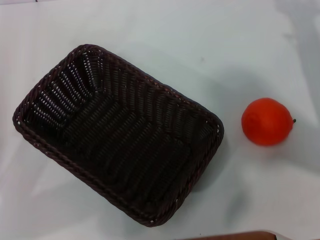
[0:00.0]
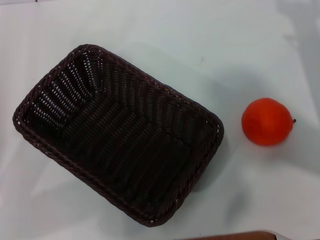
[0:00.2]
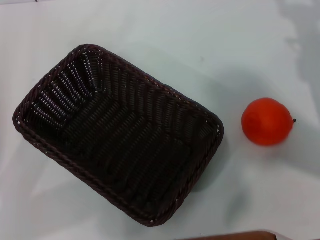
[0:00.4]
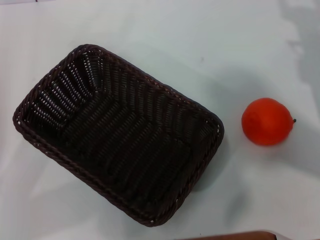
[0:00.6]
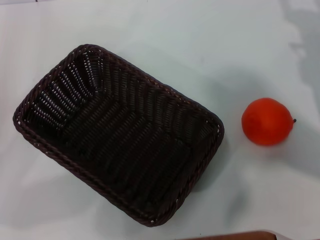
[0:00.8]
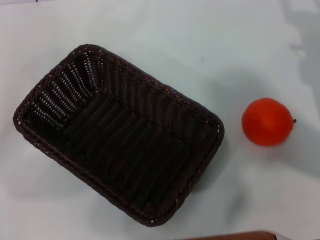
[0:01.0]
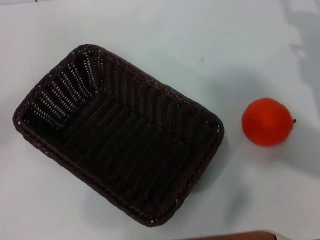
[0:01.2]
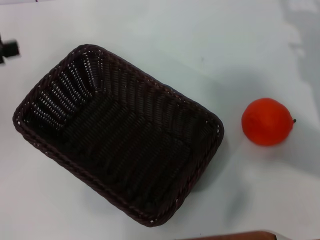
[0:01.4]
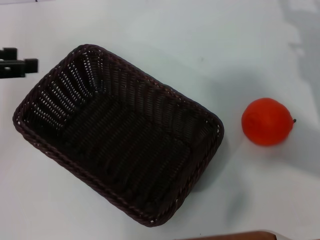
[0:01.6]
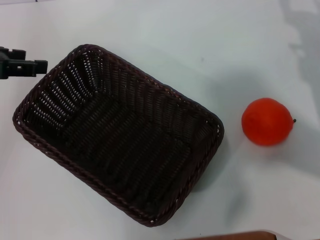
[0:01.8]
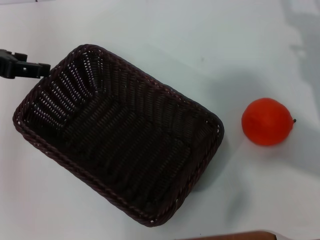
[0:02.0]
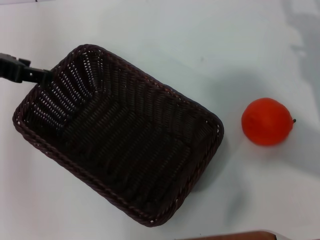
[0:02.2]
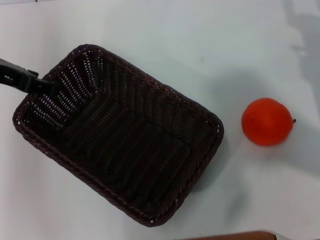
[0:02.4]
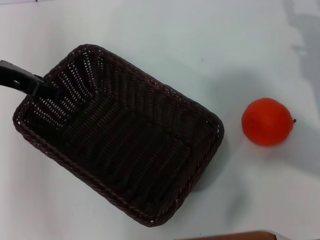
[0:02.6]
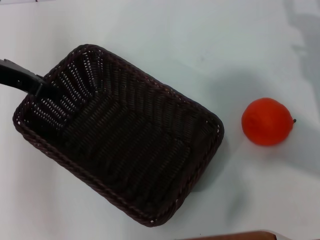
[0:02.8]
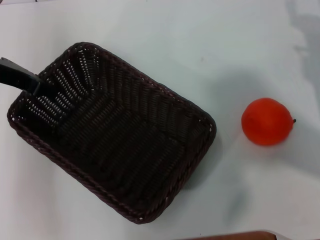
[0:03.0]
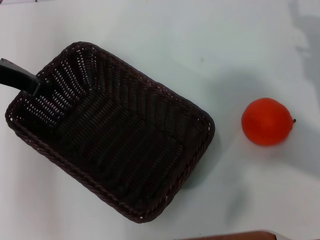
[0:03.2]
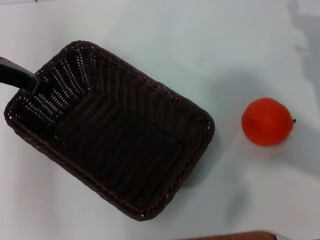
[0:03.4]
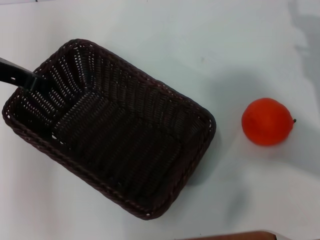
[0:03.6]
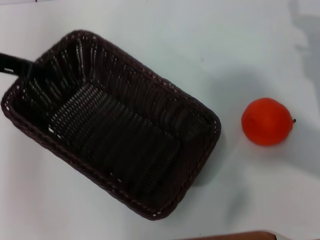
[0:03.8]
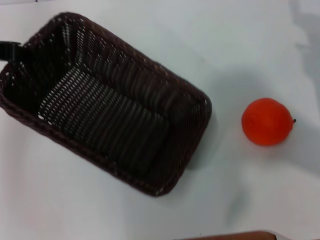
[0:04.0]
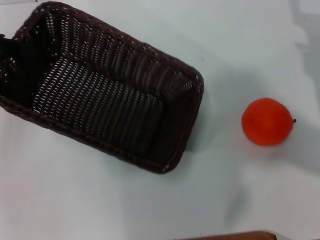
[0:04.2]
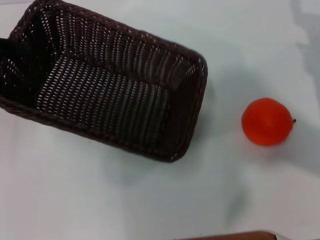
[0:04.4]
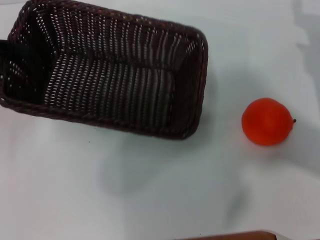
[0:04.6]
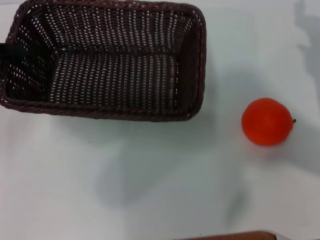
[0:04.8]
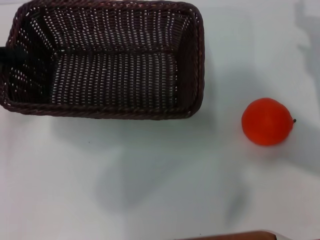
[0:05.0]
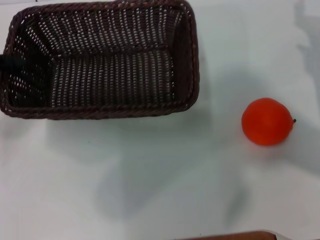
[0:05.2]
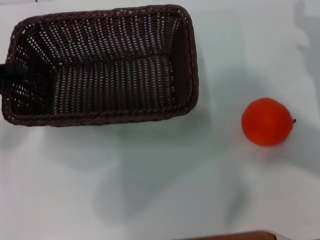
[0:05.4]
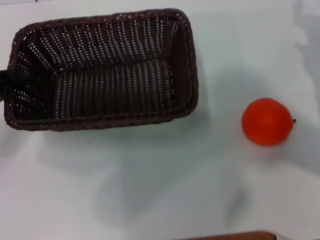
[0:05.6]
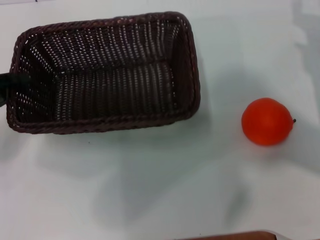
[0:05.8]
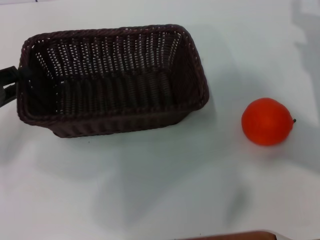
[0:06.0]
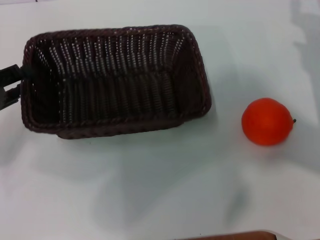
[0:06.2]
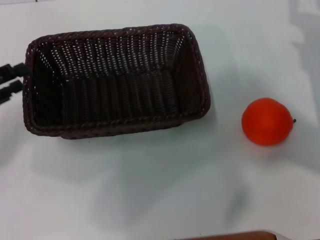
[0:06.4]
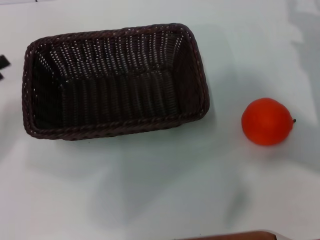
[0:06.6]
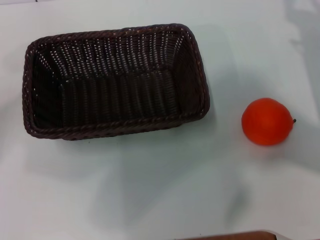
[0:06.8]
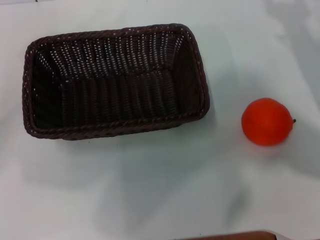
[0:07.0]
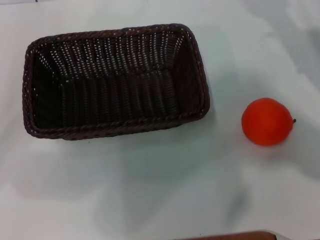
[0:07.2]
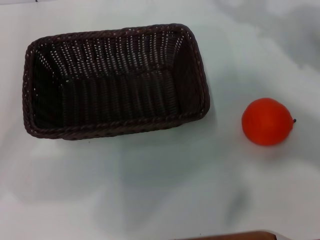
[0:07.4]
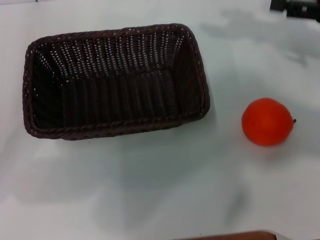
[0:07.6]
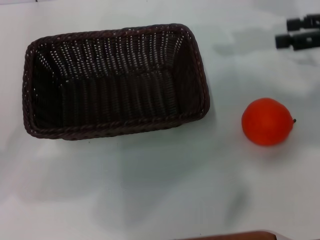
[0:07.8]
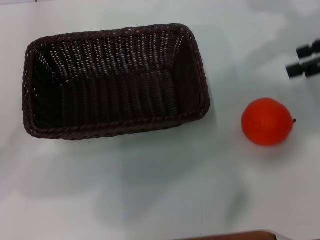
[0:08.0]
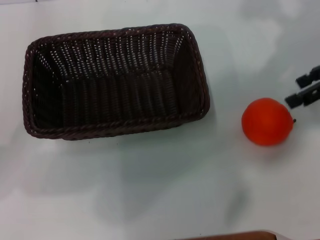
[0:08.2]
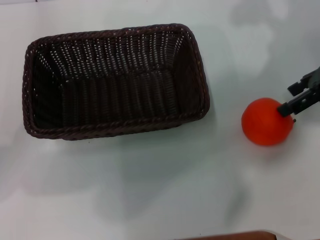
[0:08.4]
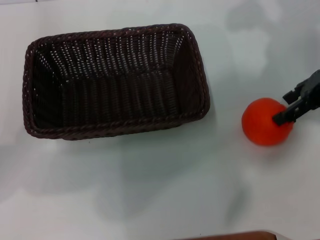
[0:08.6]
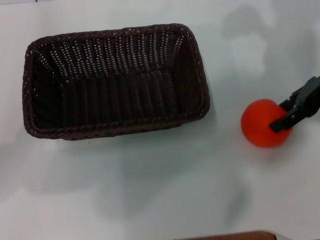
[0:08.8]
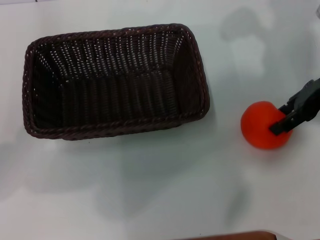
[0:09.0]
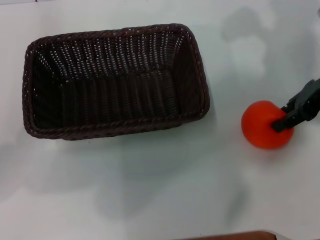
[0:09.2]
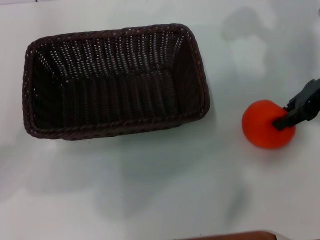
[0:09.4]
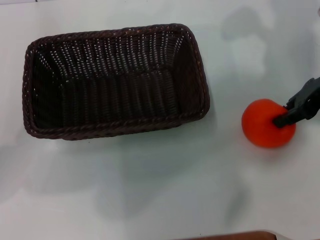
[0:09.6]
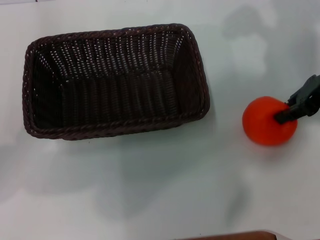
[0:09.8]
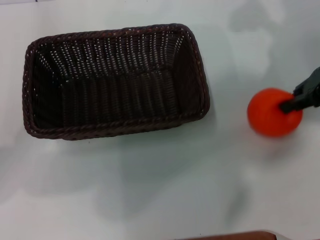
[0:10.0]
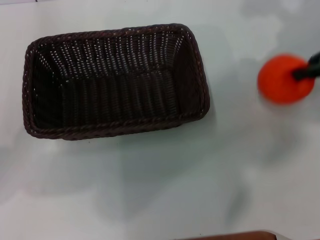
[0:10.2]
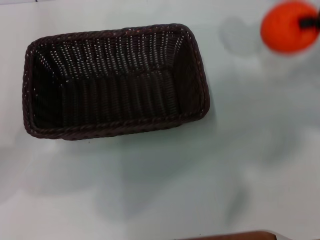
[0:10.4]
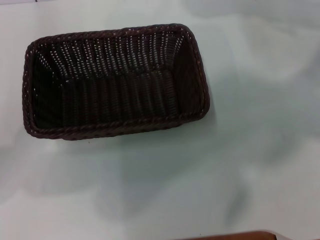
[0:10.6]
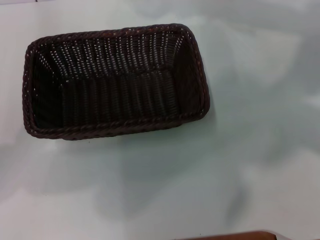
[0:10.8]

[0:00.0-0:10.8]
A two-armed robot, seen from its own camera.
Task of the whole recording: the left gripper pick up the black basket and place it horizontally in the middle of the table, the right gripper pick up the orange and place it into the black basket.
Step, 0:06.6 to 0:10.0: Pick up the orange with the left gripper.
0:00.0 to 0:01.6: The left gripper is displaced upward and forward by some 15 cm.
0:01.6 to 0:03.0: The left gripper moves to the right and forward, about 10 cm.
0:03.0 to 0:04.6: The left gripper shifts approximately 10 cm to the left, and closes its fingers.
0:04.6 to 0:06.2: The left gripper goes some 5 cm downward, and opens its fingers.
0:06.2 to 0:07.8: The left gripper opens up, while the right gripper goes roughly 15 cm upward, and opens its fingers.
0:07.8 to 0:09.2: The right gripper moves to the left, some 5 cm, and closes up.
0:09.2 to 0:10.8: The right gripper travels upward by approximately 5 cm, reaches roughly 5 cm to the right, then returns, and closes.

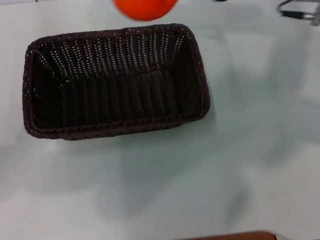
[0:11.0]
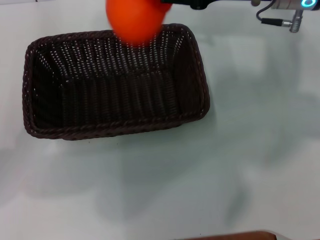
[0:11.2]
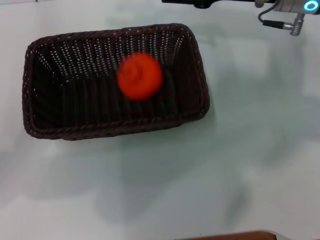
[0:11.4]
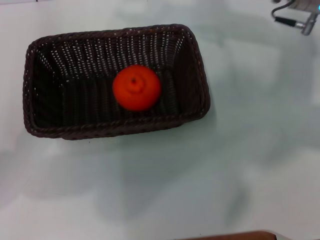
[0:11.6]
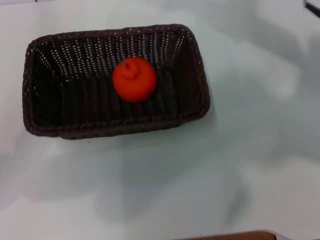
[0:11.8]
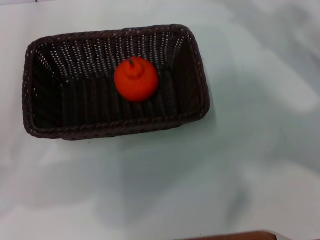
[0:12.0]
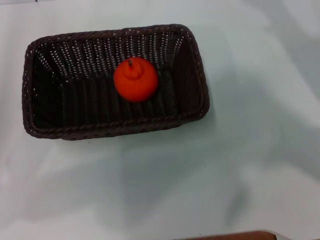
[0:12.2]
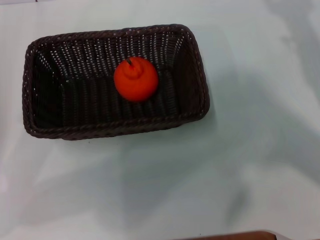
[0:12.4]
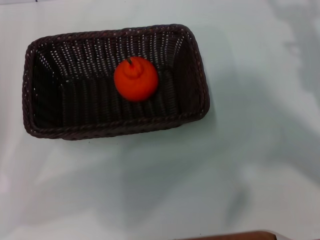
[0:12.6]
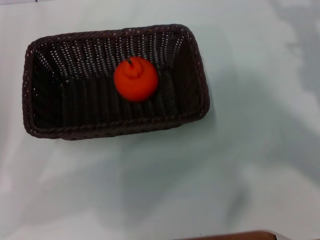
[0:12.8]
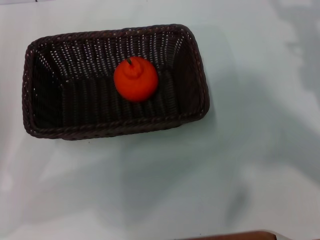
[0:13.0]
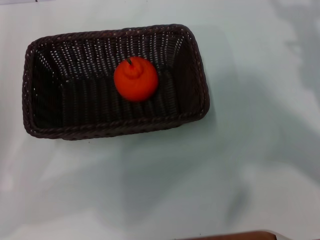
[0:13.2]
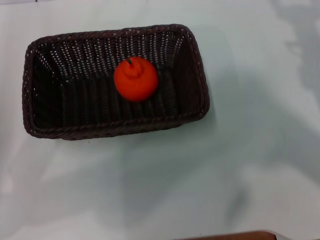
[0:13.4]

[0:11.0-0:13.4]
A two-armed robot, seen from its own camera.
Task of the whole recording: the left gripper pick up the black basket and place it horizontally in the middle of the table, the right gripper pick up the orange and place it into the black basket.
0:11.0 to 0:12.2: The right gripper is displaced to the right, downward and backward by some 15 cm, and opens.
